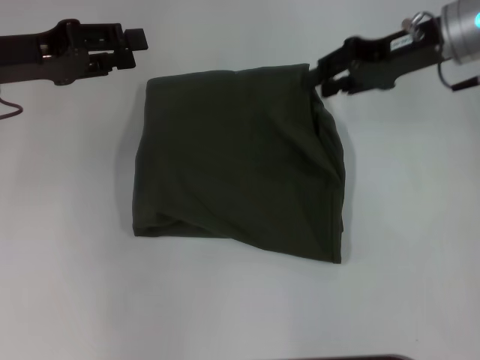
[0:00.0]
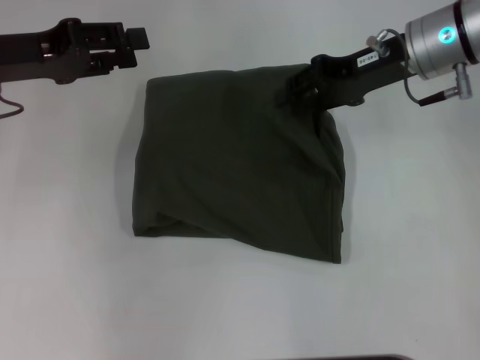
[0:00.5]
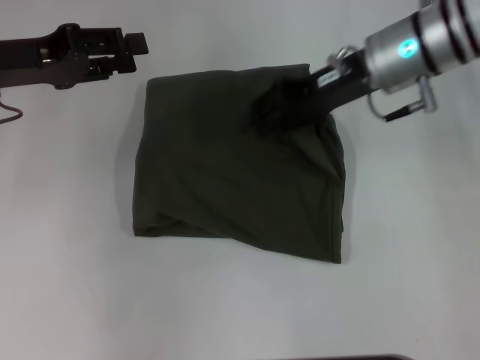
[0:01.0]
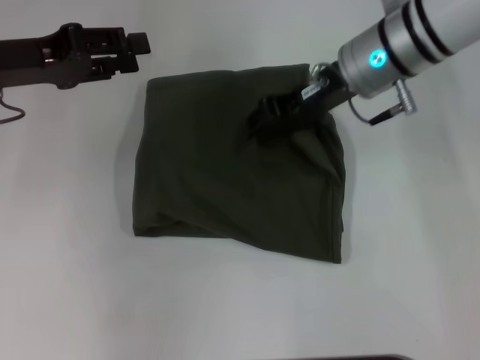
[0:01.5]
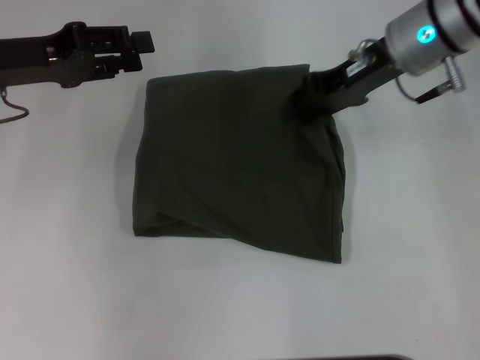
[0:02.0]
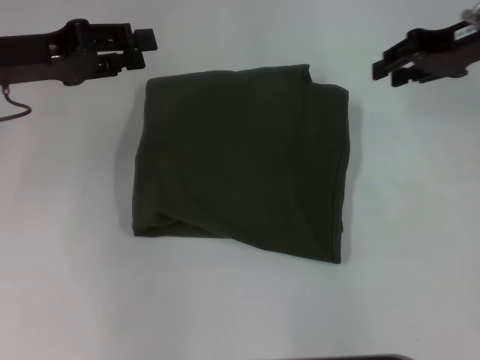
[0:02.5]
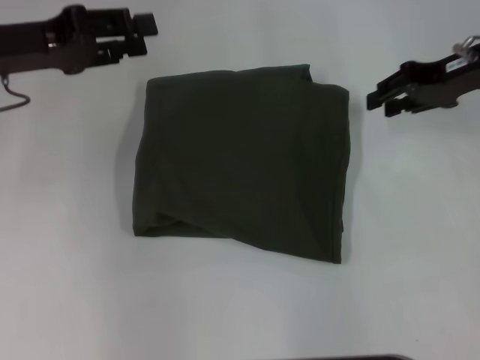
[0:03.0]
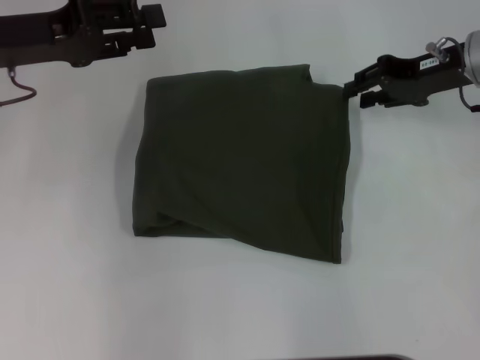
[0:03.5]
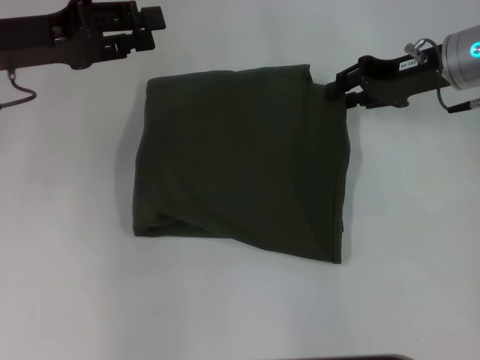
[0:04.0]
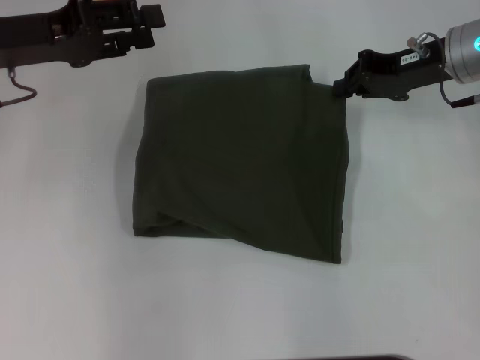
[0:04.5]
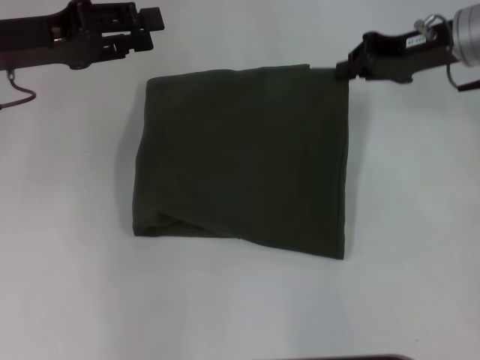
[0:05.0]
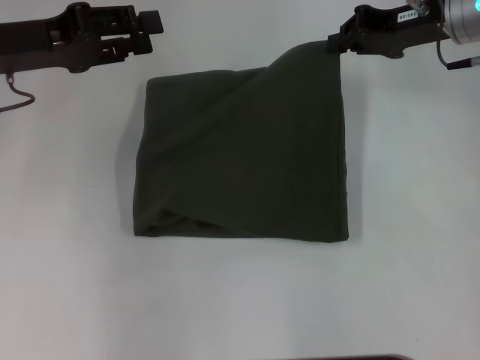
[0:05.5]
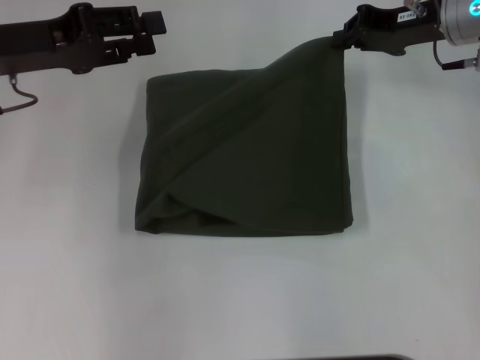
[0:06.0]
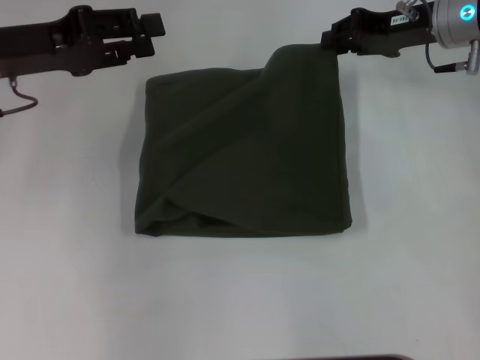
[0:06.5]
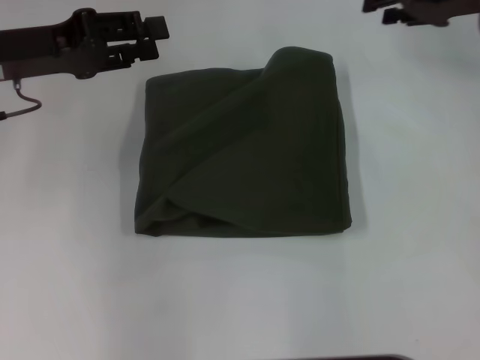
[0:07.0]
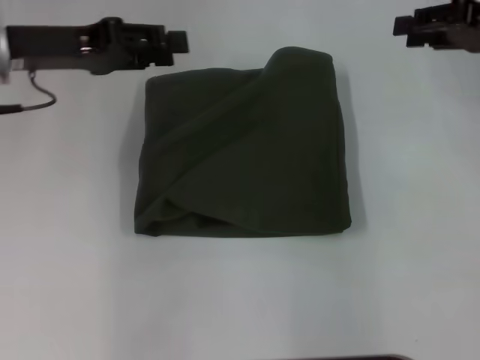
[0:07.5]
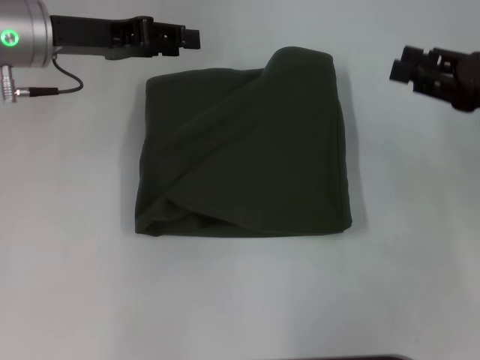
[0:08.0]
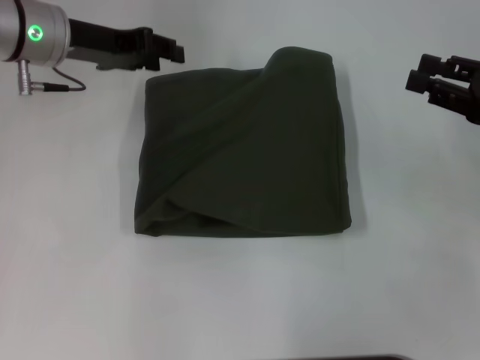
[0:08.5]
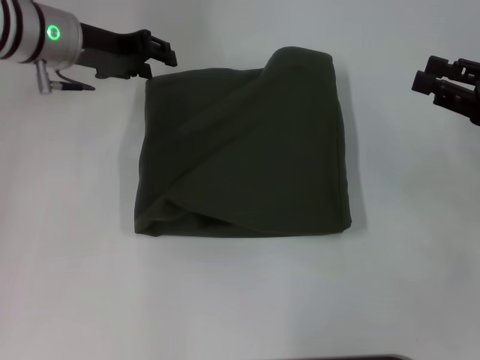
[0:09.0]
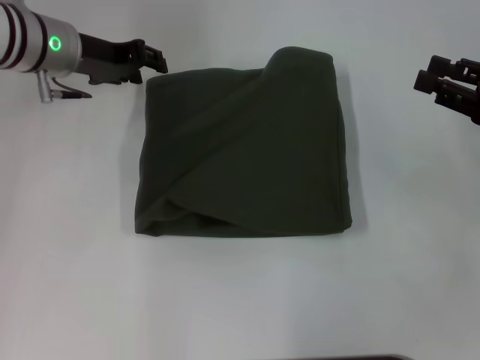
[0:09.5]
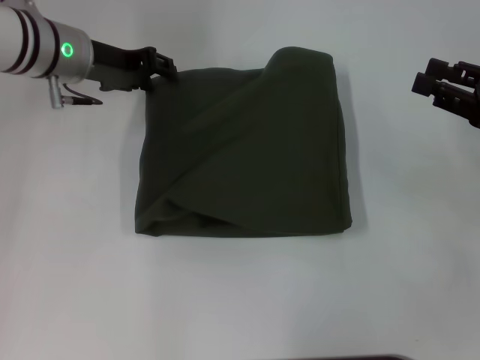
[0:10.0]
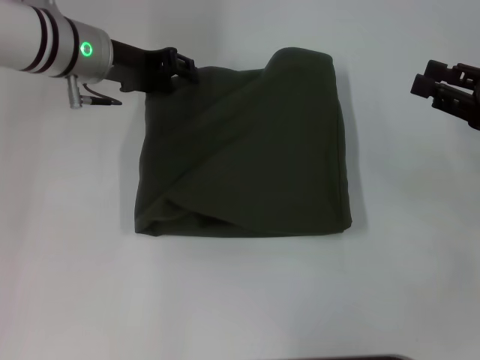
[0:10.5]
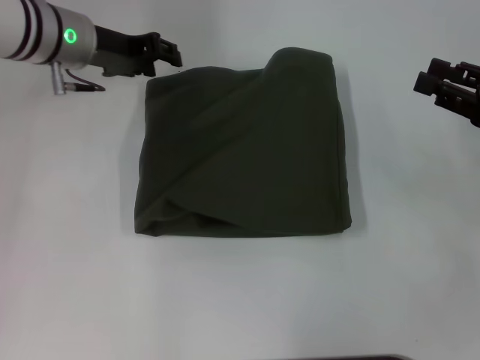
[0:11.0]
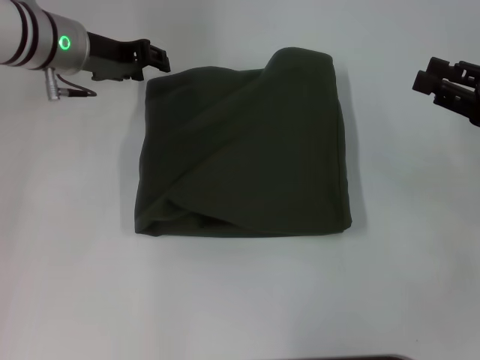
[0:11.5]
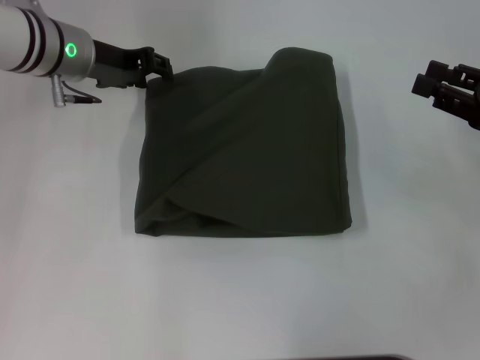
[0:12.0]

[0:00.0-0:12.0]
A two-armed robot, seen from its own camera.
0:00.0 to 0:02.0: The right gripper heads to the left, covering about 5 cm.
0:02.0 to 0:04.0: The right gripper travels to the right by approximately 5 cm.
0:04.0 to 0:06.0: The right gripper closes.
0:06.0 to 0:08.0: The right gripper goes approximately 15 cm backward and to the right, and opens up, while the left gripper ends up roughly 5 cm from where it was.
0:08.0 to 0:10.0: The left gripper ends up about 5 cm from where it was.
0:10.0 to 0:12.0: The grippers make only small movements.

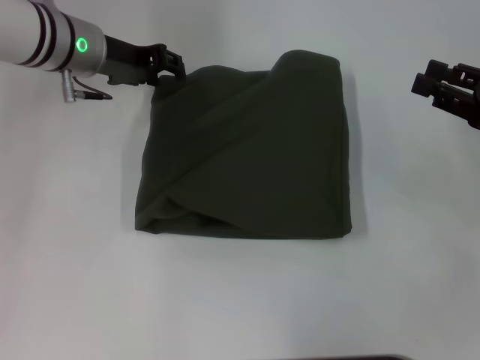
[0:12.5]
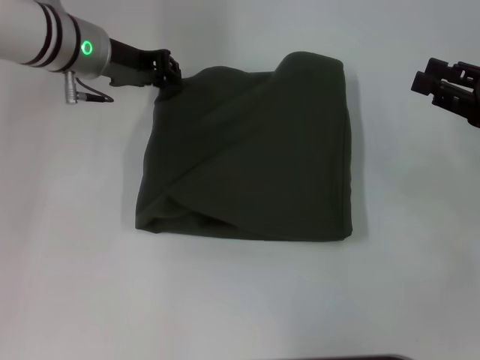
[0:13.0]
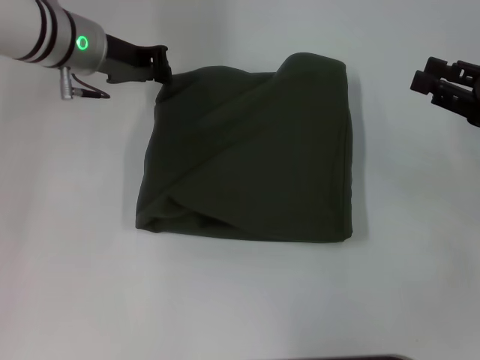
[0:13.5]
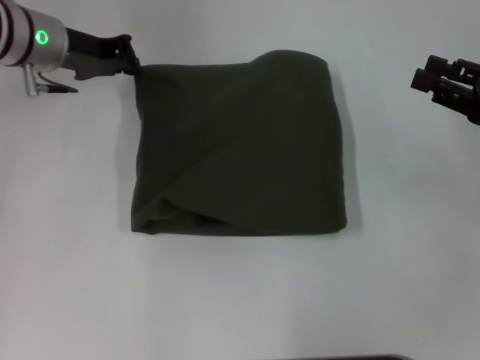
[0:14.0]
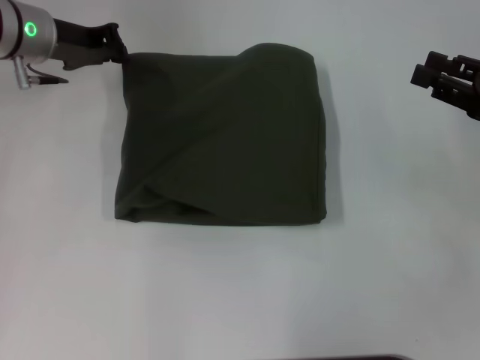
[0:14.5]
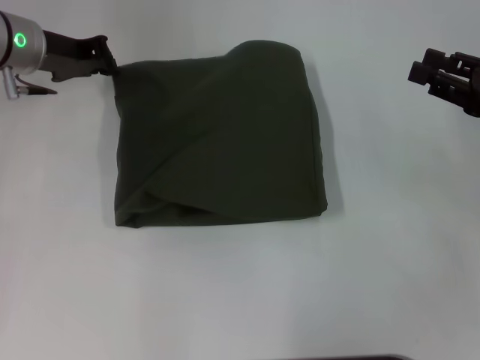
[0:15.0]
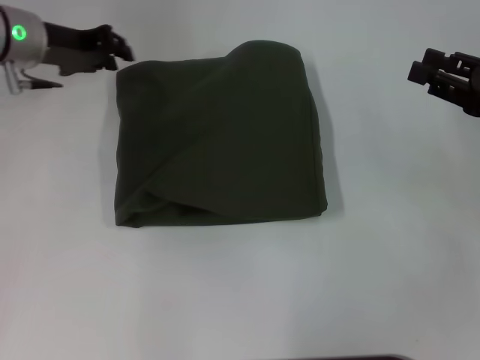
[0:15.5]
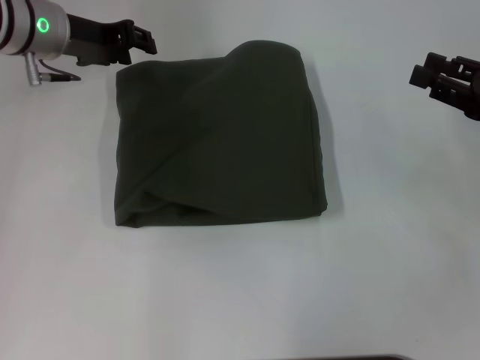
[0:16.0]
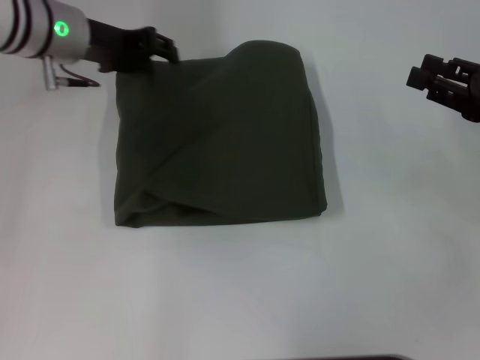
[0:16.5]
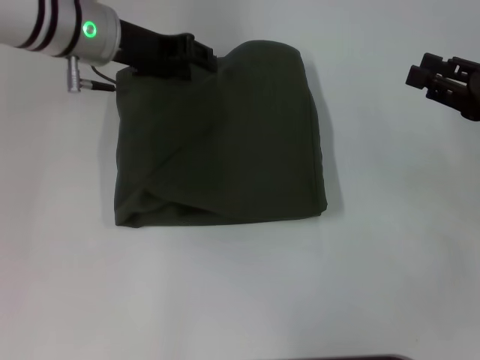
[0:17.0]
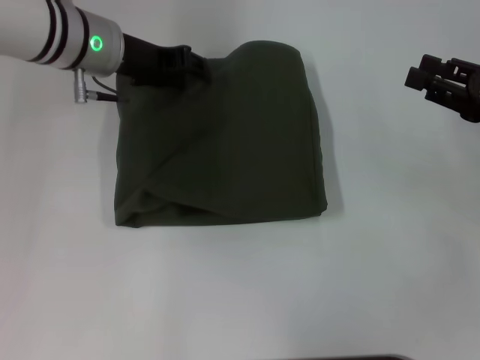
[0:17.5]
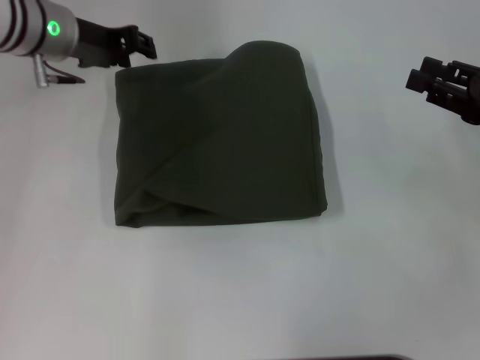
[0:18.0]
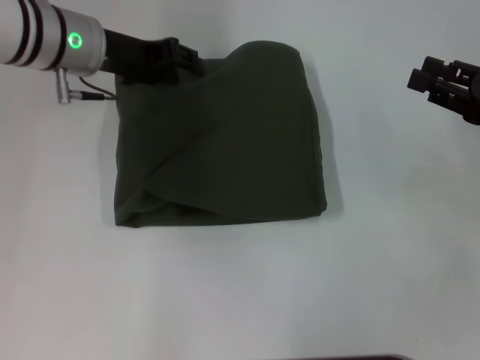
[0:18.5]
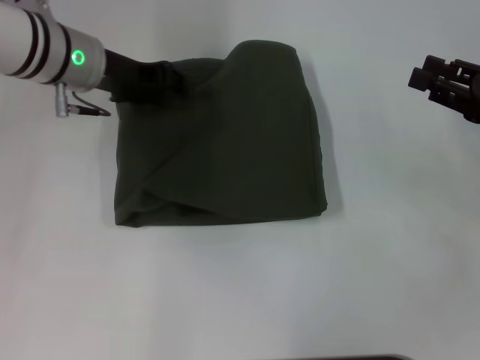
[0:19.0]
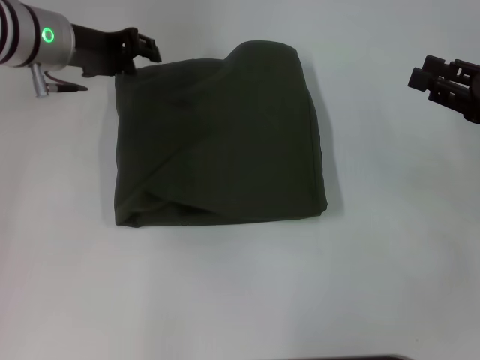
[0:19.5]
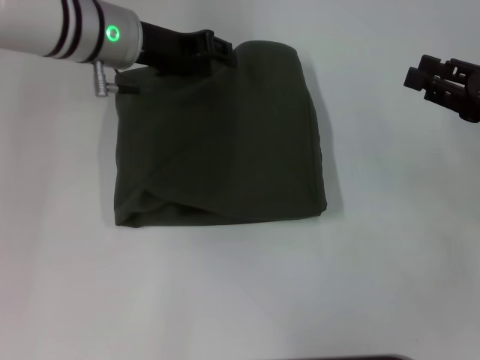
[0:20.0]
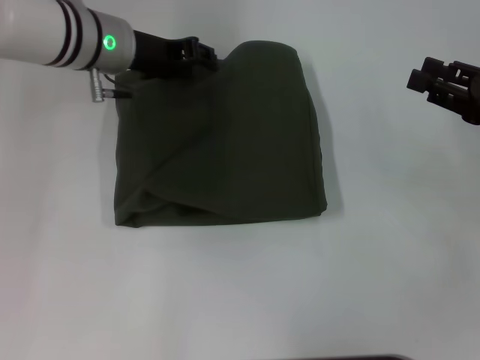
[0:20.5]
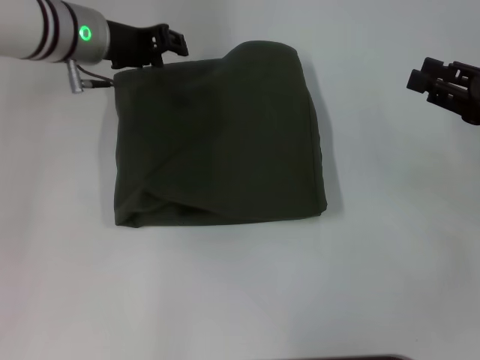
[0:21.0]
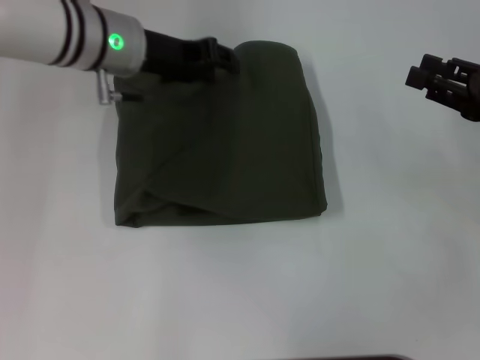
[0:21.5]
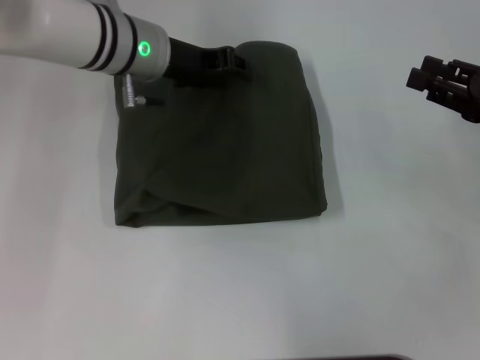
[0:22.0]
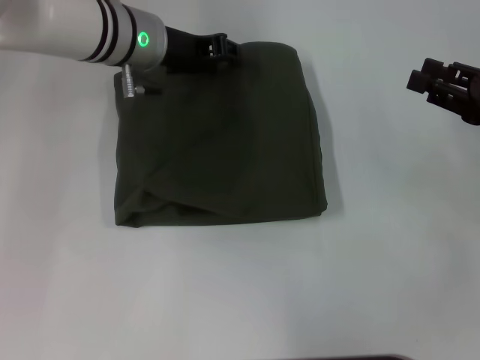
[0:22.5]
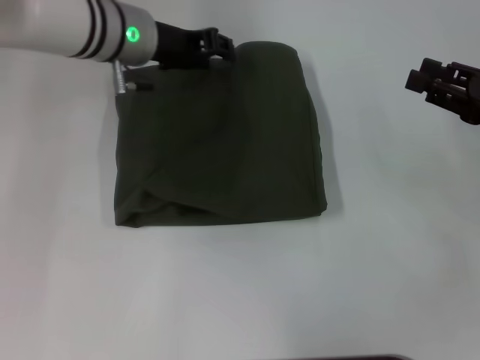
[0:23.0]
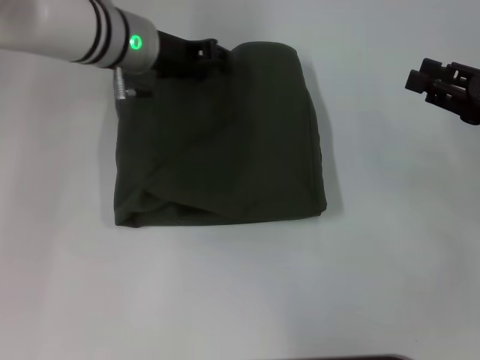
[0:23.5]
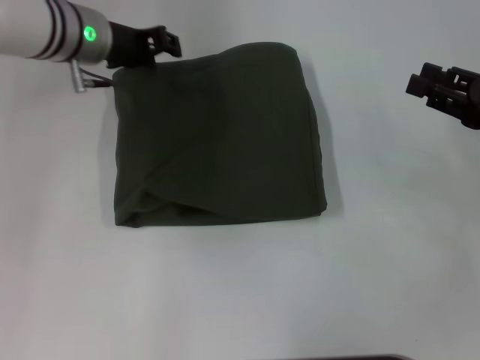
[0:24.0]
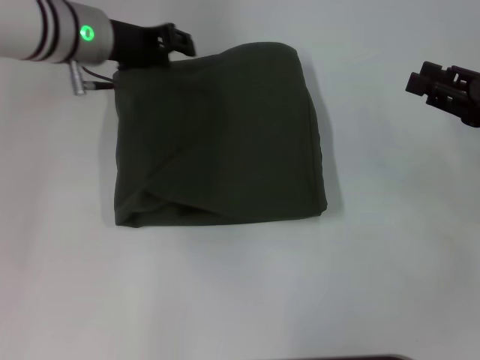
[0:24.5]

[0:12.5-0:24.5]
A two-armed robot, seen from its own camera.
0:12.5 to 0:14.5: The left gripper closes.
0:14.5 to 0:16.5: The left gripper opens.
0:16.5 to 0:20.5: The grippers make only small movements.
0:20.5 to 0:22.5: The grippers stay close to where they were, moving slightly.

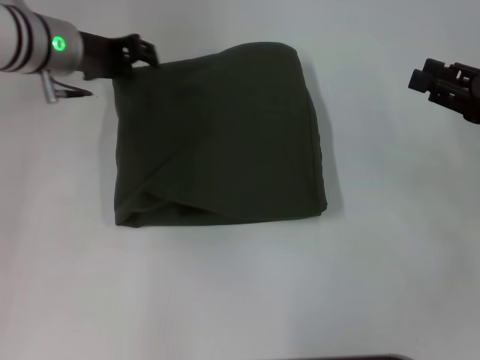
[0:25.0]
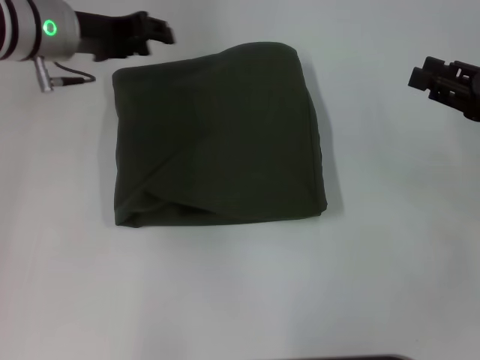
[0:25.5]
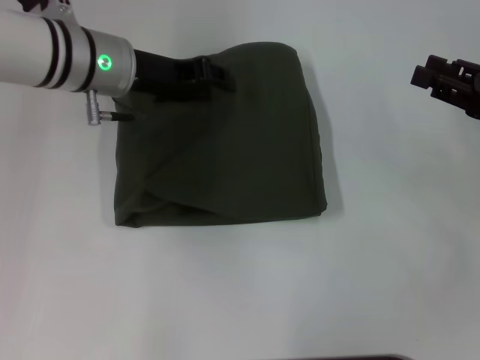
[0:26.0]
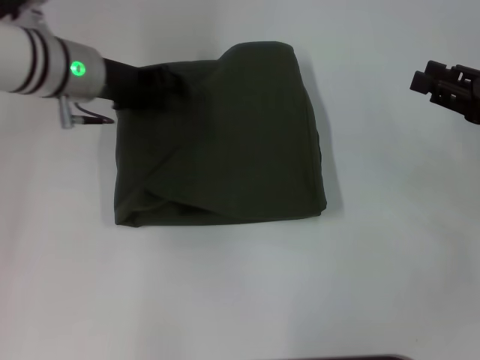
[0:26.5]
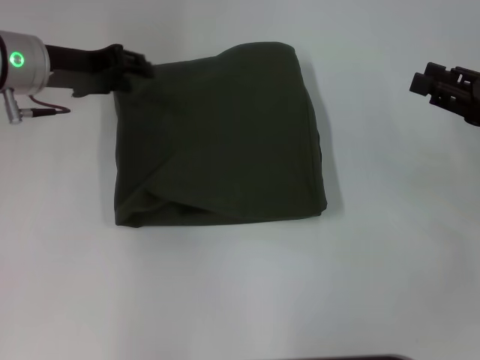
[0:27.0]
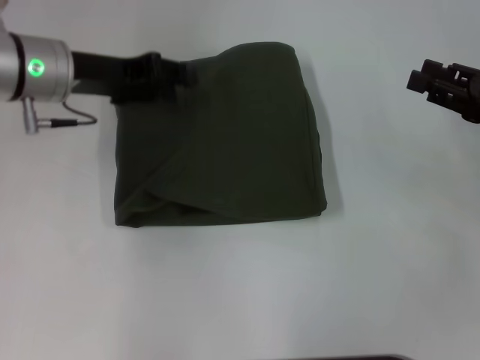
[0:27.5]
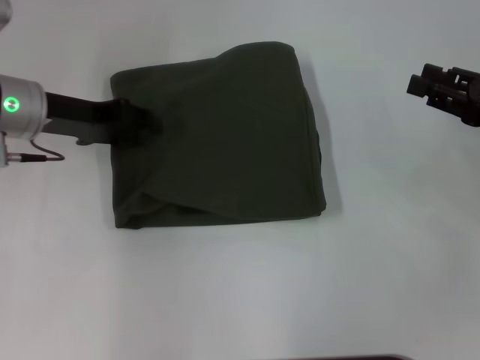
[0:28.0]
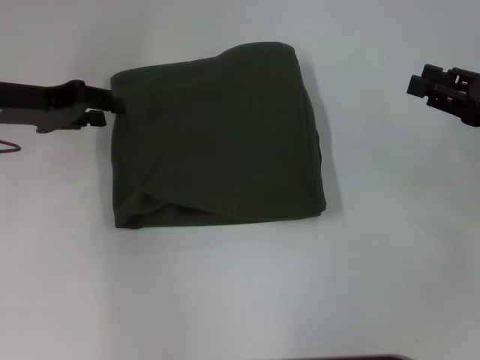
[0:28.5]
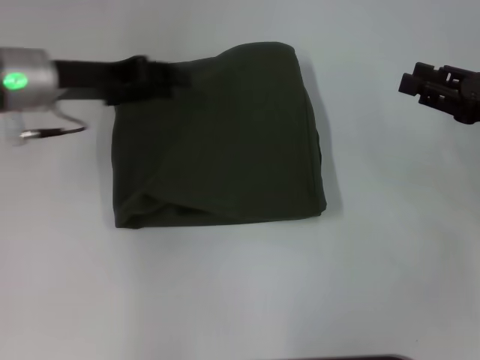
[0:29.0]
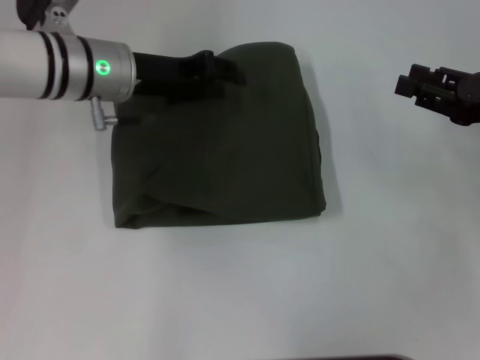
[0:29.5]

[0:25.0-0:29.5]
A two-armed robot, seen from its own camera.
0:25.0 to 0:27.0: The grippers move only a little.
0:27.0 to 0:29.5: The left gripper travels to the right by some 5 cm.
